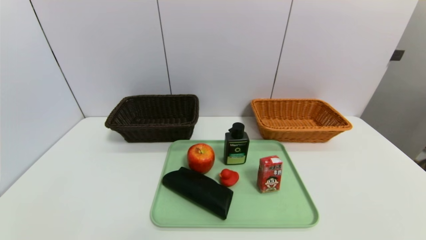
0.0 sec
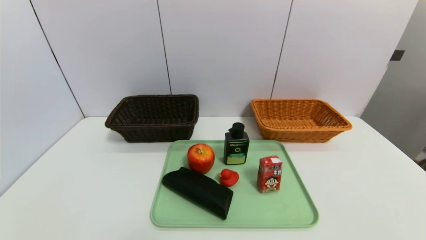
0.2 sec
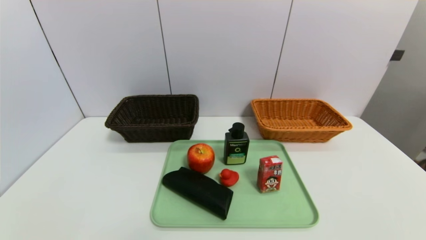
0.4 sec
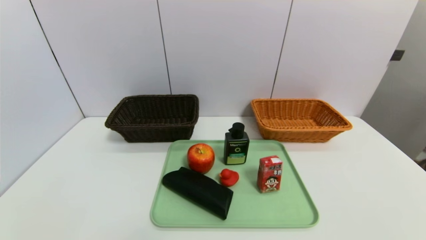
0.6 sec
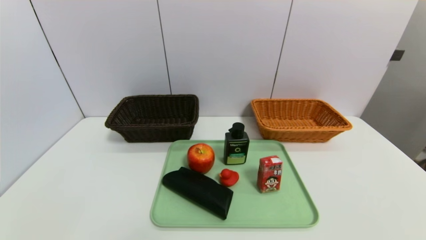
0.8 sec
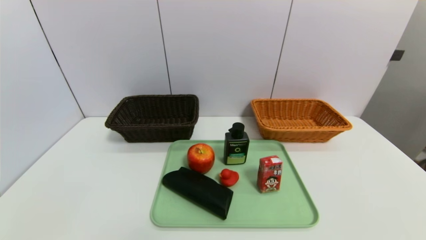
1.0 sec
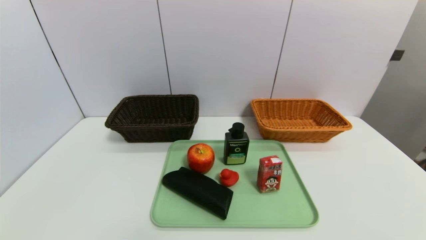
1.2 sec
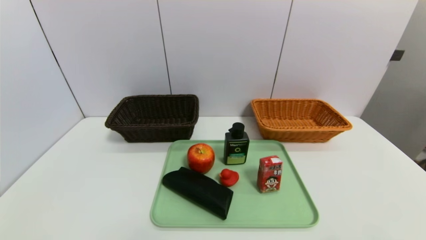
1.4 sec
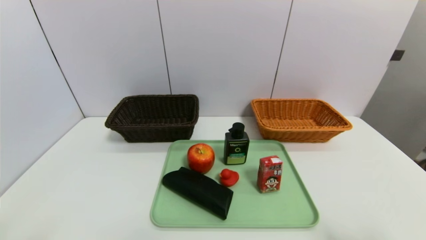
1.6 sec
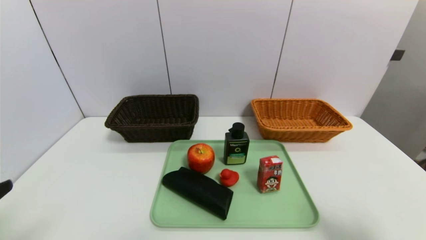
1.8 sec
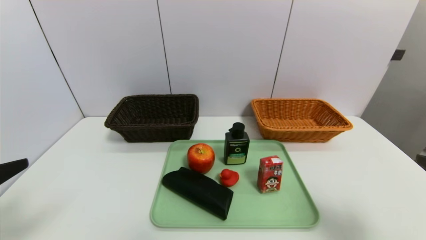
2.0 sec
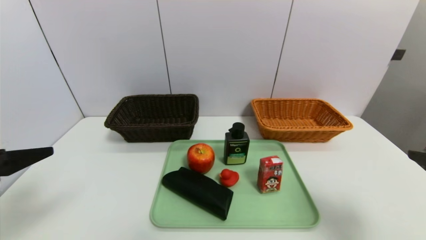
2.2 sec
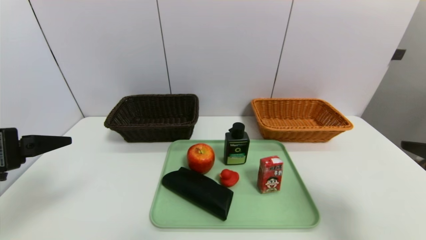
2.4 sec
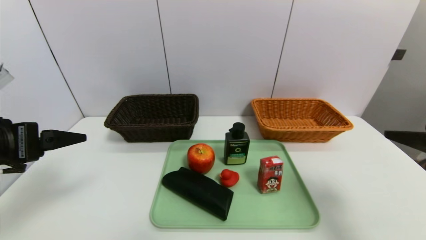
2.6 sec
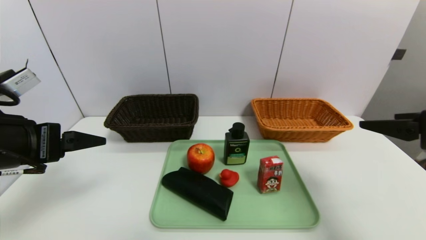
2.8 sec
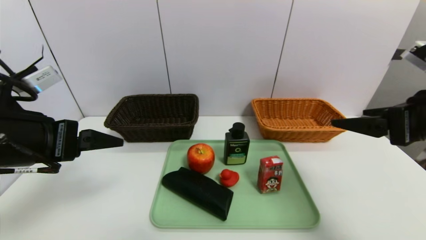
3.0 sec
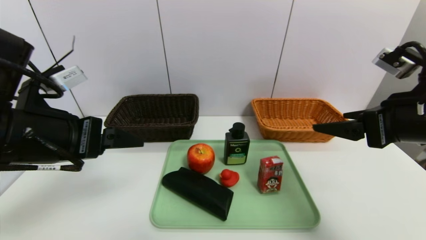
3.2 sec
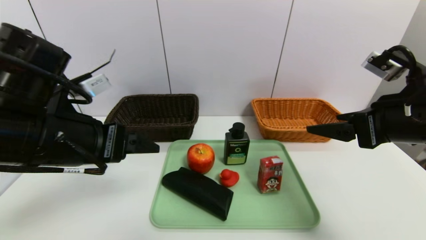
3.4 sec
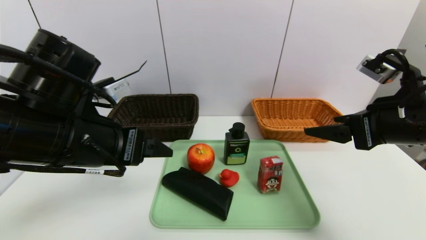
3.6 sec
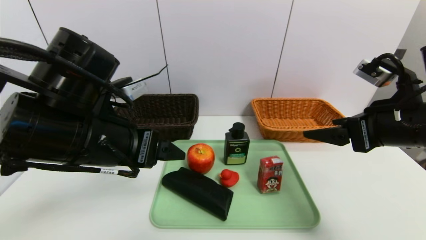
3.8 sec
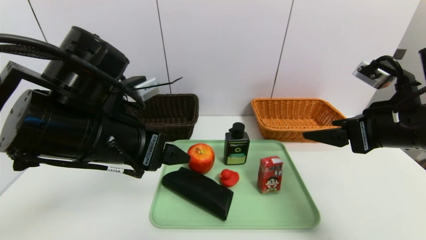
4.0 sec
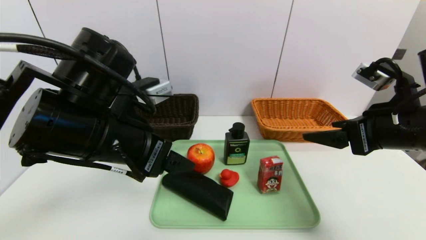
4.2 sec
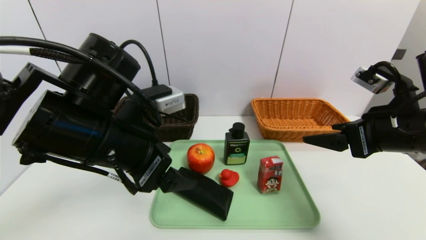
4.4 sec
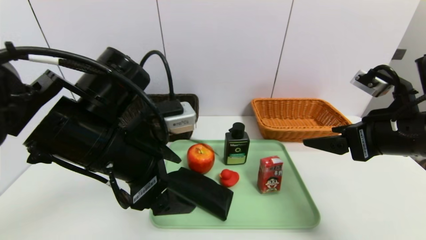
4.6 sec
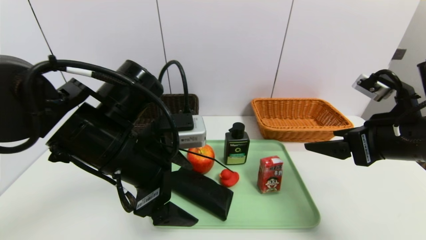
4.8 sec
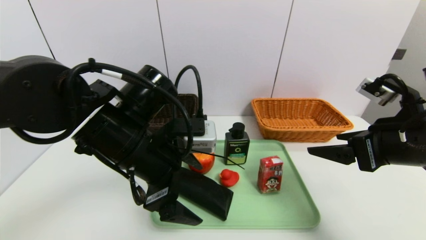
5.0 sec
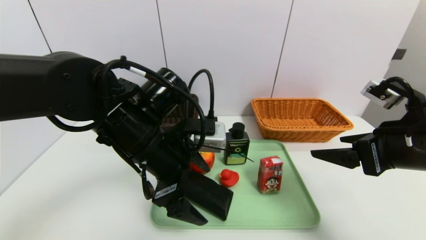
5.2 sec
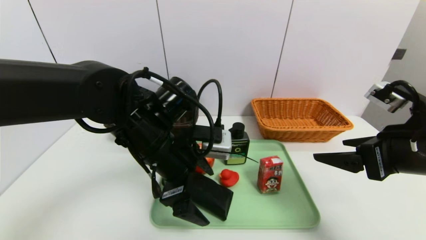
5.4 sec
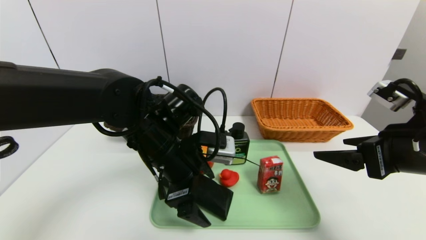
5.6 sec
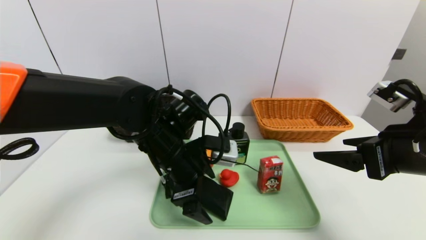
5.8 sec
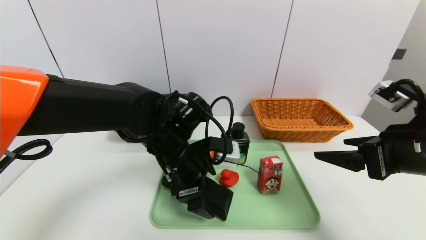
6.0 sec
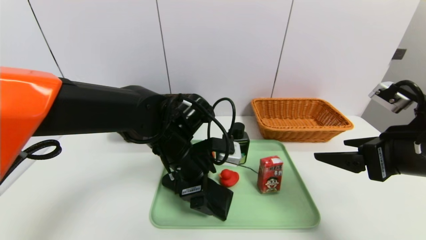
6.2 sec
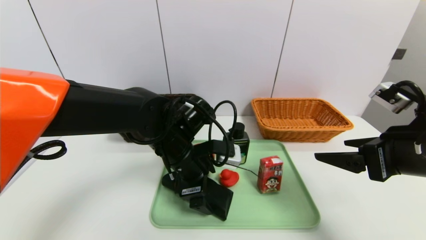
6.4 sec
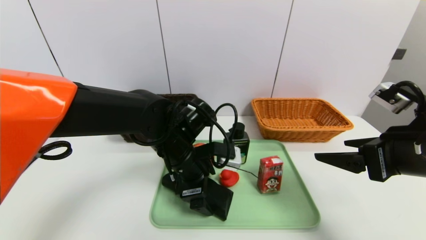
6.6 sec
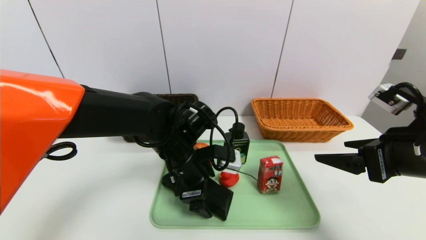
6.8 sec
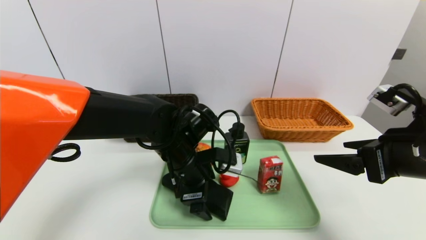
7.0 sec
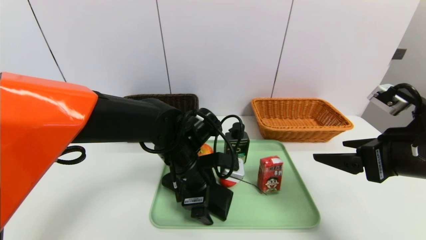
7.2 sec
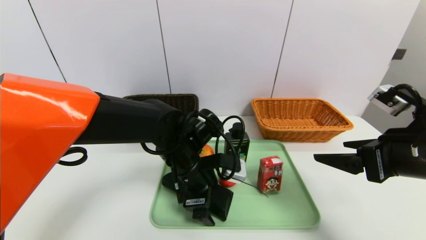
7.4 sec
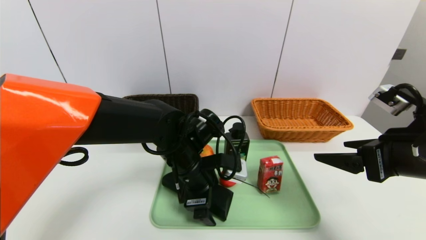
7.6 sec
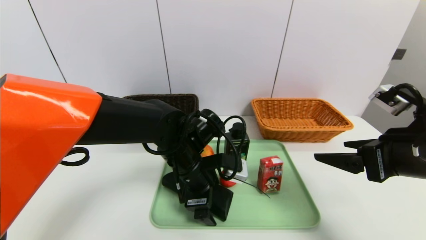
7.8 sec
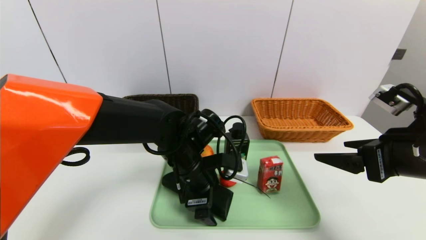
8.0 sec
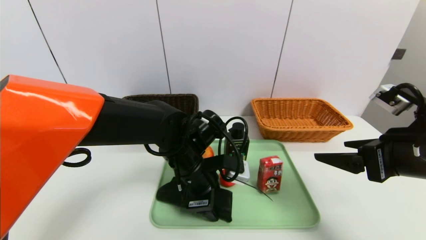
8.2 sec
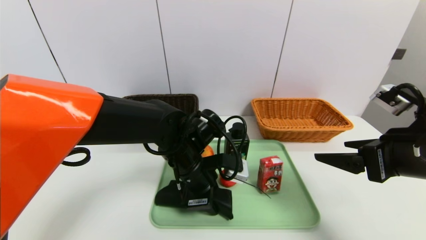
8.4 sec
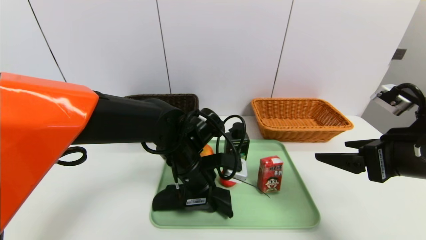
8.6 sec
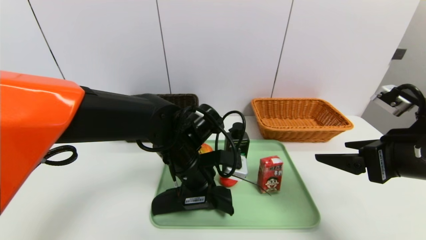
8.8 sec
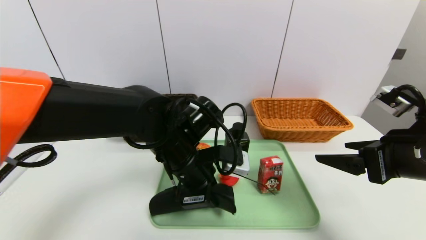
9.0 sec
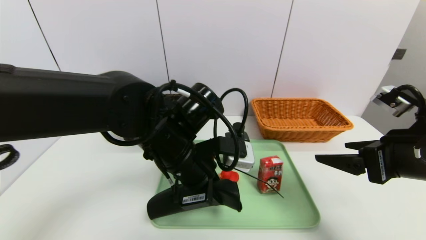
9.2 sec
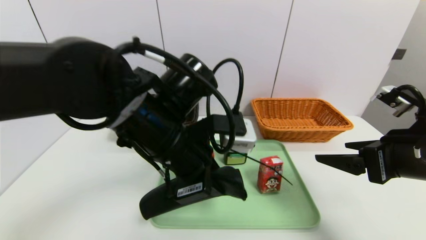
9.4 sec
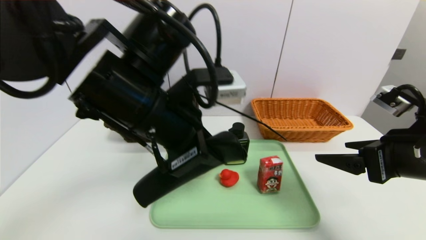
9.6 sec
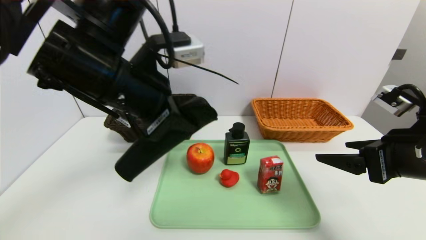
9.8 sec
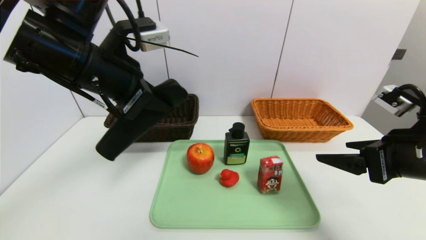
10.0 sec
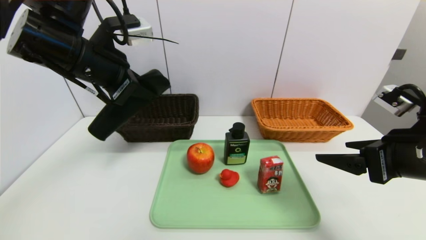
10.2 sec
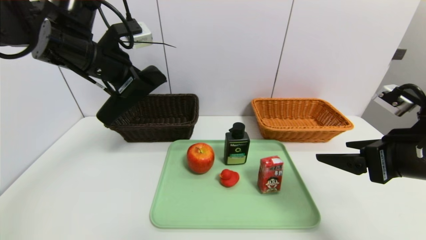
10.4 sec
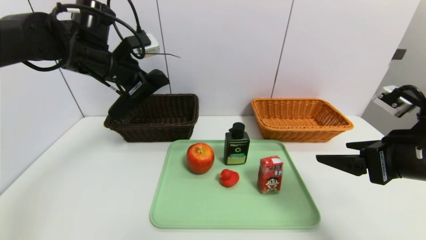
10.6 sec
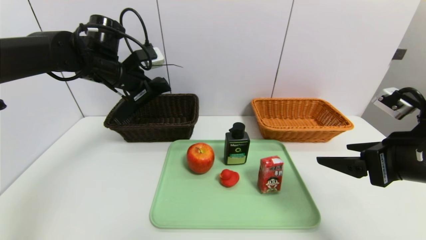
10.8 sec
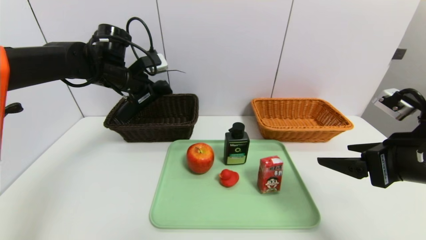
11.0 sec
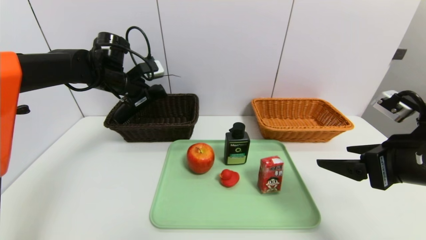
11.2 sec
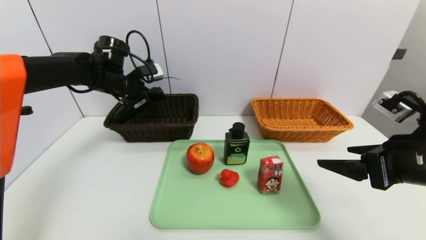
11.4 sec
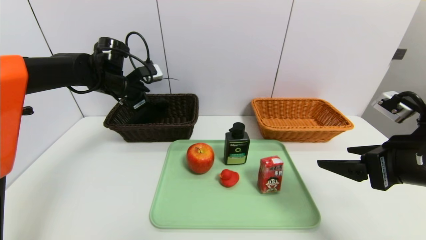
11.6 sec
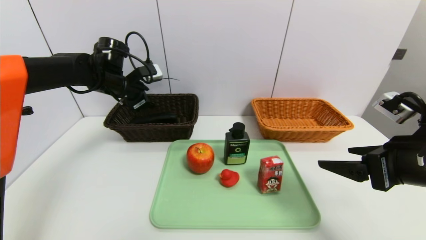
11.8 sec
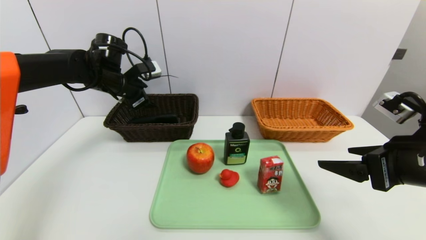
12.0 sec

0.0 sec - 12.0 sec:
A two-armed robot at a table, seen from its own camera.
Task of the whole recording: place the food in the right basket with the right gripper, and place the non food items in the left basket with the left gripper.
1.6 sec - 3.0 sec: The left gripper is displaced forward by some 15 cm. Meanwhile the right gripper is displaced forward and upward by some 15 cm.
3.0 sec - 4.4 sec: The left gripper shifts about 10 cm to the right.
4.4 sec - 6.0 sec: The left gripper shifts approximately 15 cm downward, forward and to the right.
6.0 sec - 7.6 sec: The grippers stay close to where they were, moving slightly.
7.6 sec - 9.0 sec: The left gripper closes its fingers.
9.0 sec - 10.4 sec: The left gripper moves to the left, upward and forward, approximately 25 cm.
10.4 sec - 12.0 sec: The left gripper shifts about 10 cm forward and downward, and opens.

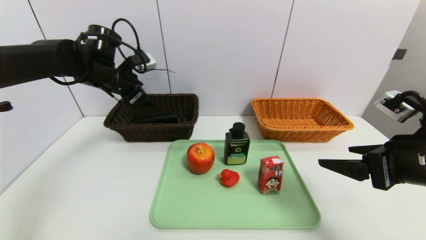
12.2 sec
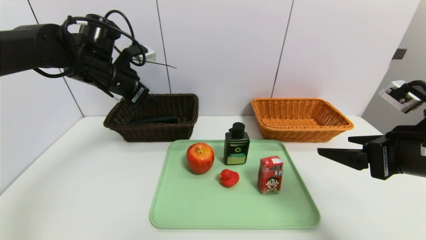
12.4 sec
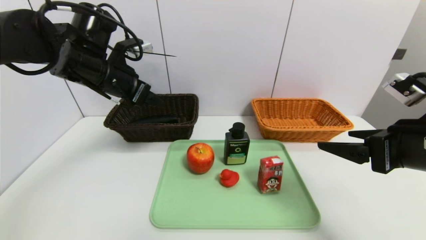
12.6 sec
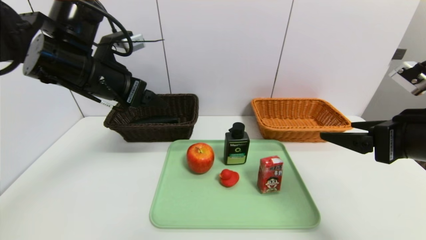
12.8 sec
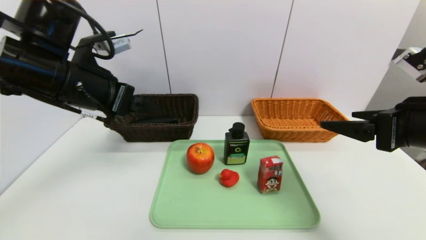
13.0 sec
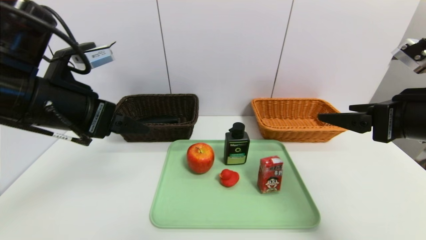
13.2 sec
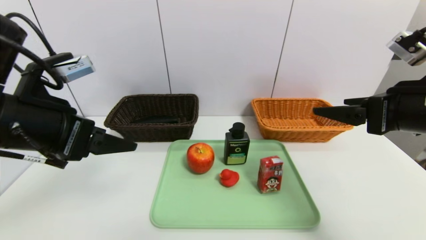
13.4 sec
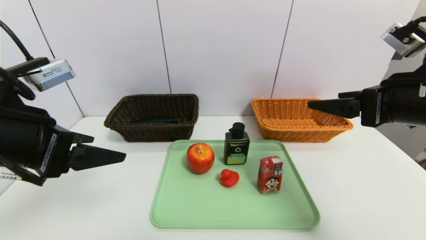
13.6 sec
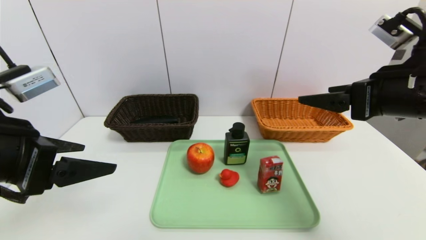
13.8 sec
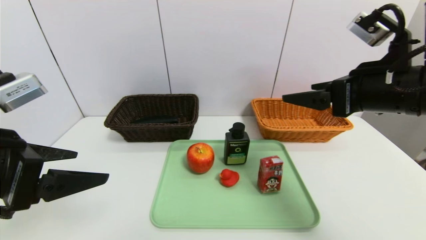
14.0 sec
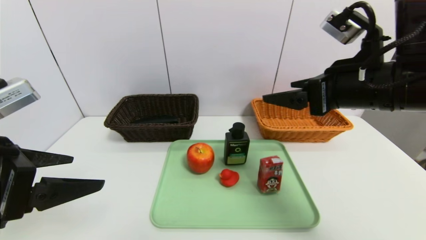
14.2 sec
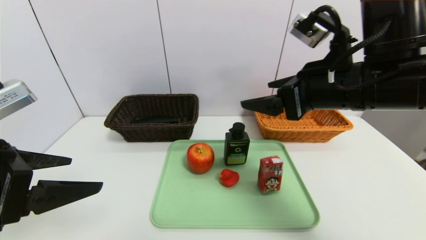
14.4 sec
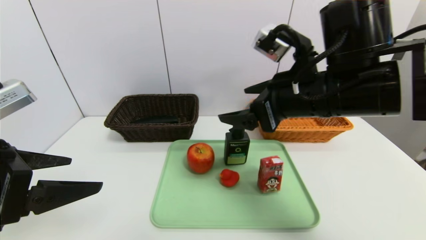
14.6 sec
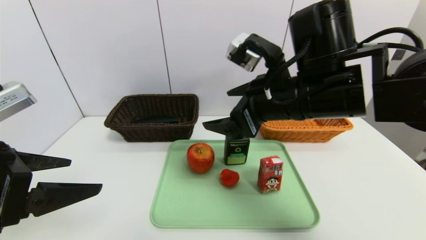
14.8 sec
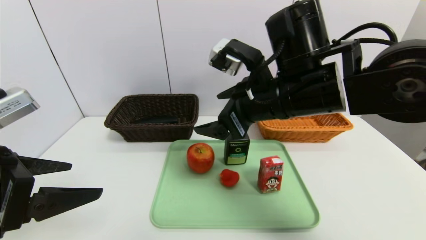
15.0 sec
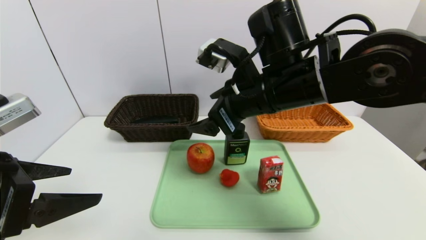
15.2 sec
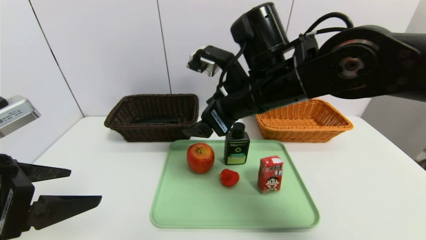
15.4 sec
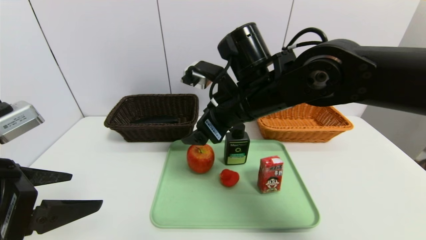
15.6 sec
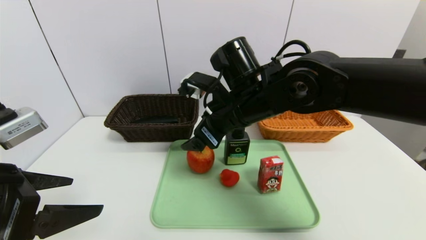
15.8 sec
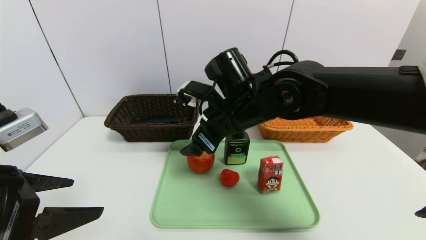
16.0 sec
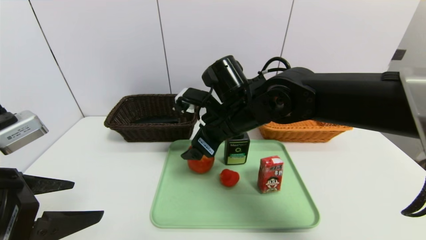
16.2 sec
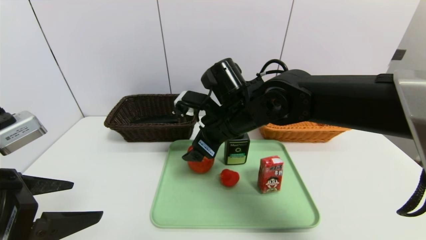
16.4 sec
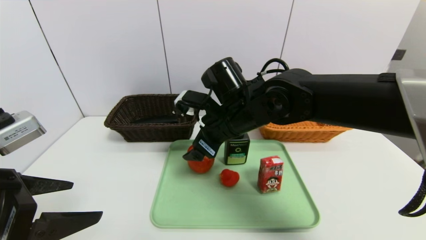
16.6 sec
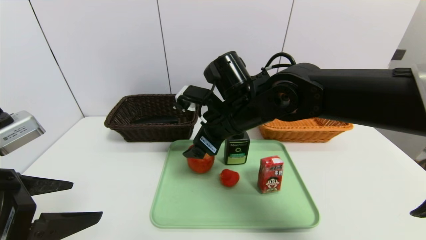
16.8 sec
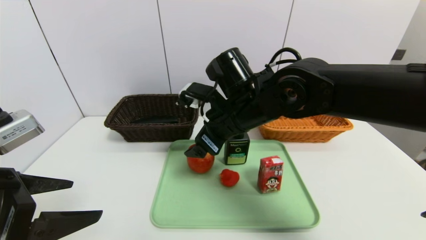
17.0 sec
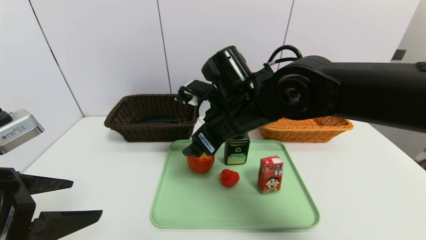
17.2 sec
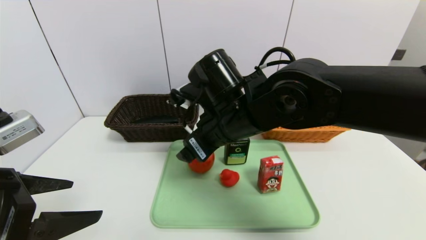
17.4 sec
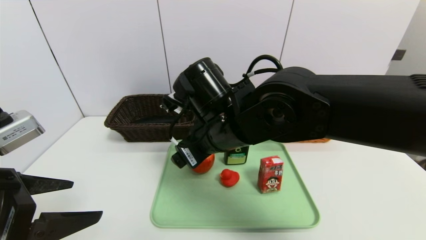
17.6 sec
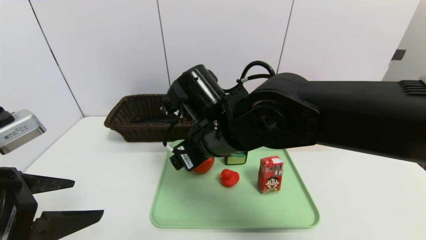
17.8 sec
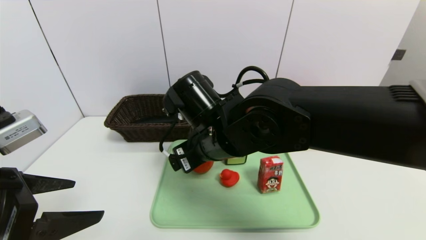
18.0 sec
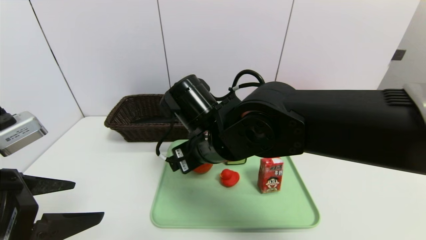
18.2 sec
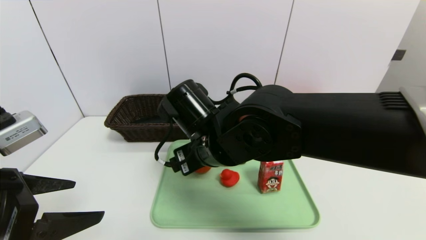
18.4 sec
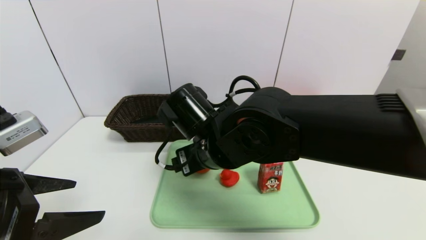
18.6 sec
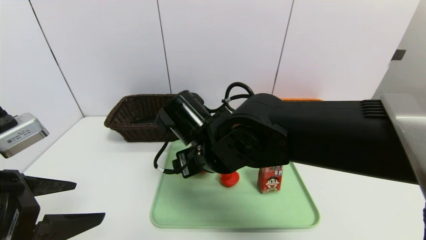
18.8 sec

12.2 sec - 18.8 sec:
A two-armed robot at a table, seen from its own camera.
Task of the whole recording: place the food in the right basket with the right gripper, and place the non food items in the left basket with the left gripper.
12.2 sec - 13.8 sec: The left gripper is displaced backward by some 25 cm, while the right gripper moves upward, approximately 5 cm.
13.8 sec - 15.4 sec: The right gripper travels to the left by some 20 cm.
17.2 sec - 18.8 sec: The right gripper ends up roughly 5 cm from where it was.
